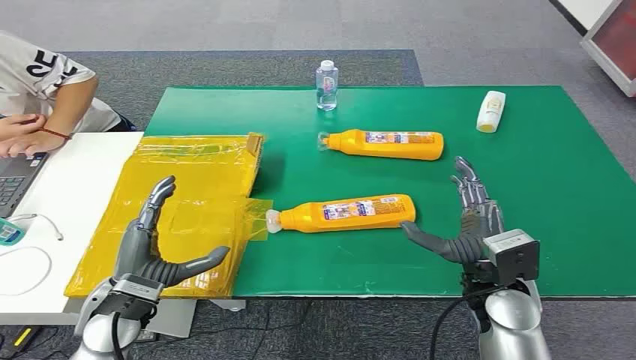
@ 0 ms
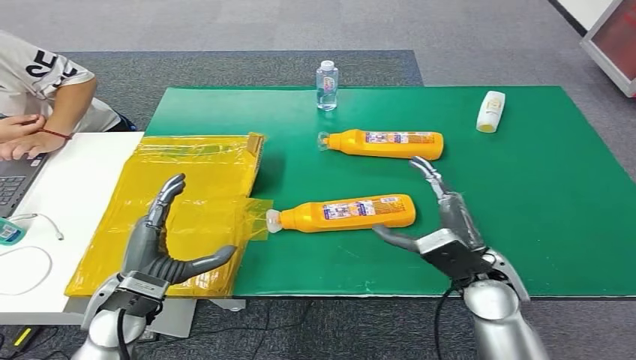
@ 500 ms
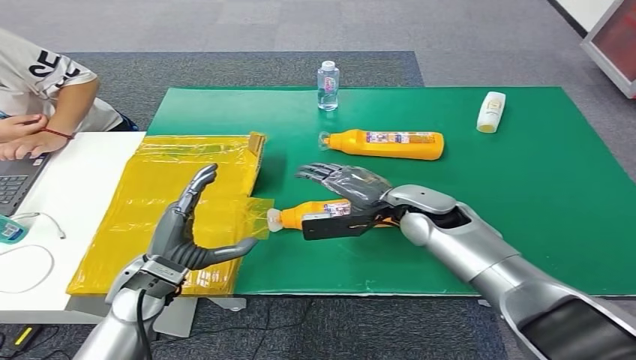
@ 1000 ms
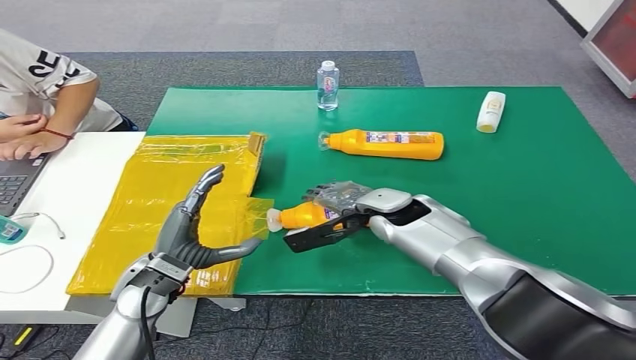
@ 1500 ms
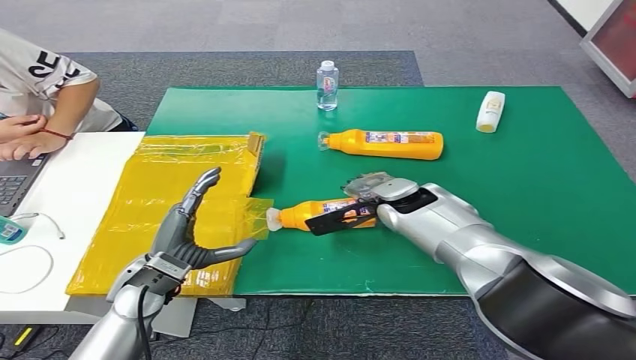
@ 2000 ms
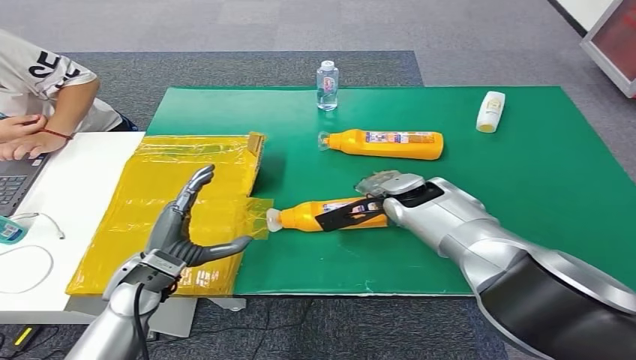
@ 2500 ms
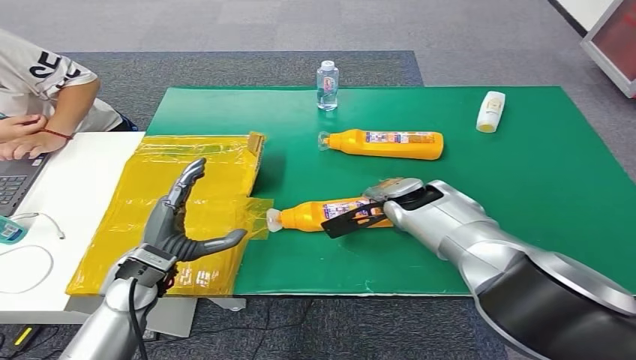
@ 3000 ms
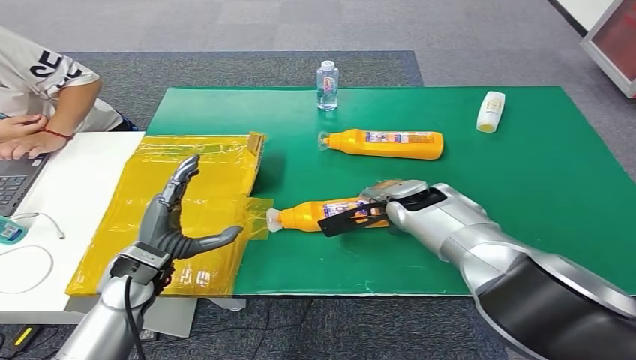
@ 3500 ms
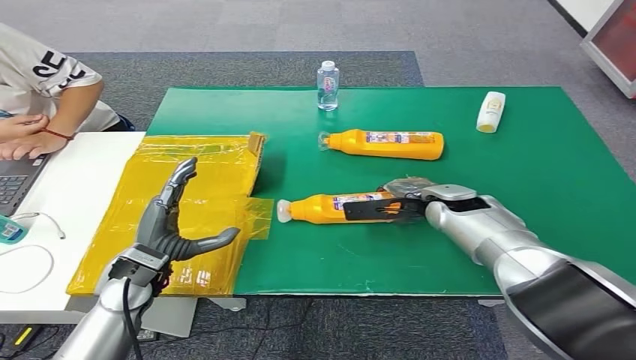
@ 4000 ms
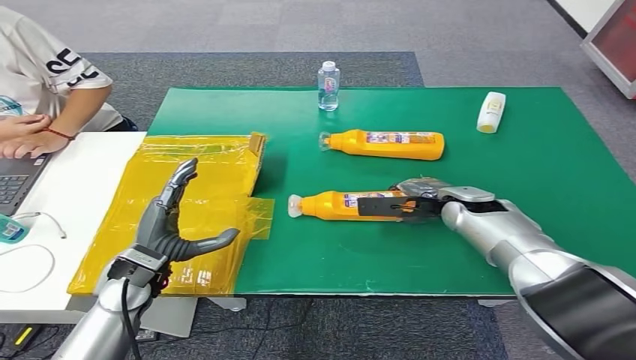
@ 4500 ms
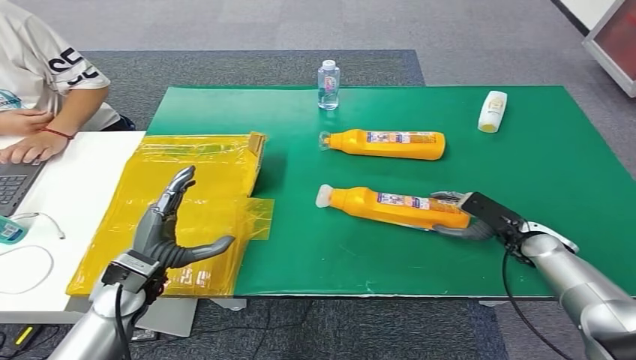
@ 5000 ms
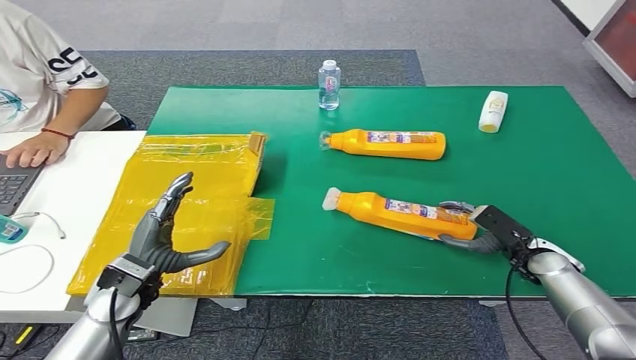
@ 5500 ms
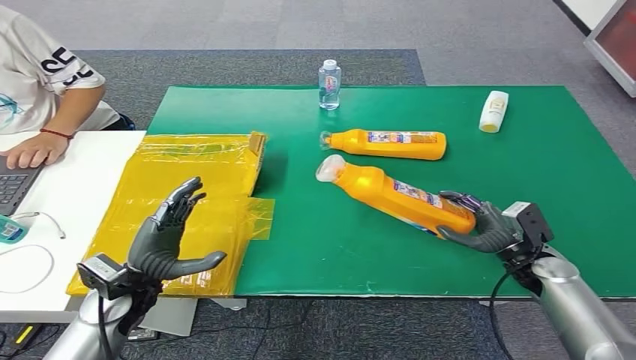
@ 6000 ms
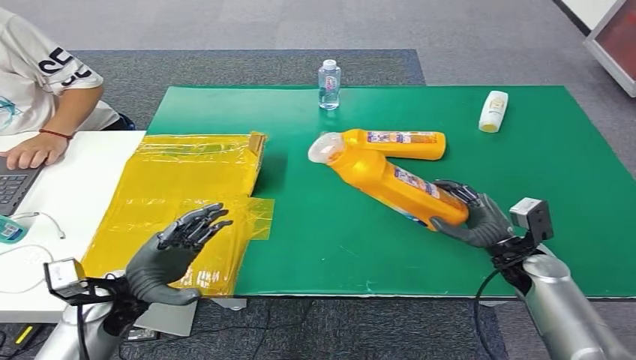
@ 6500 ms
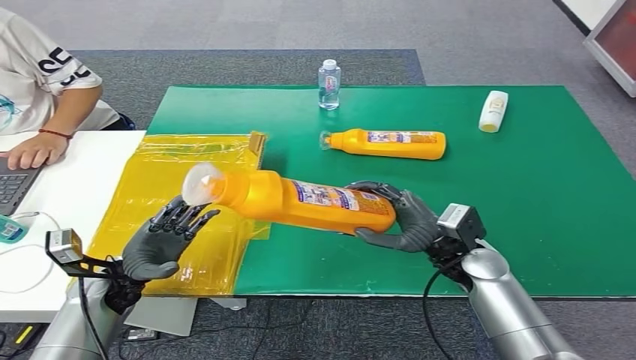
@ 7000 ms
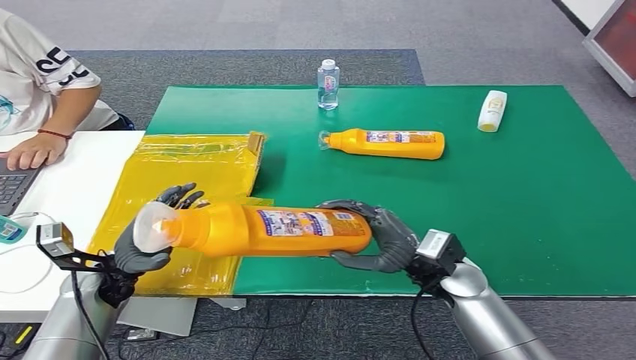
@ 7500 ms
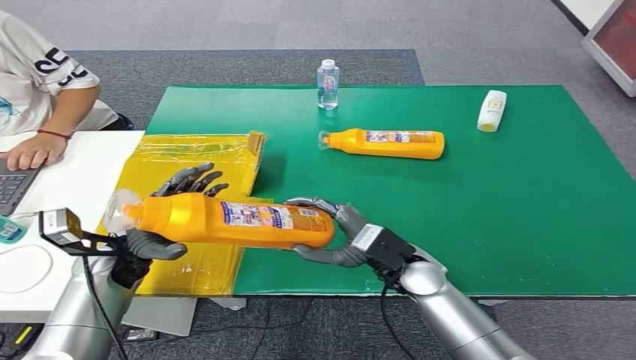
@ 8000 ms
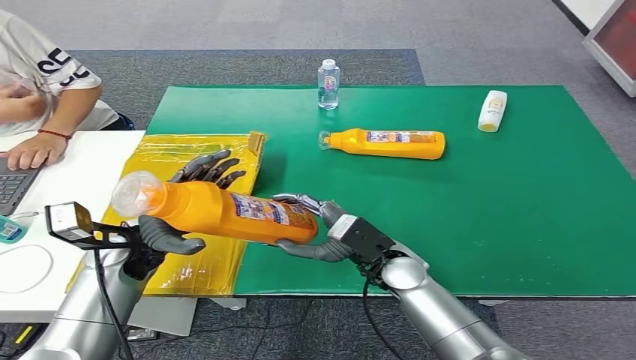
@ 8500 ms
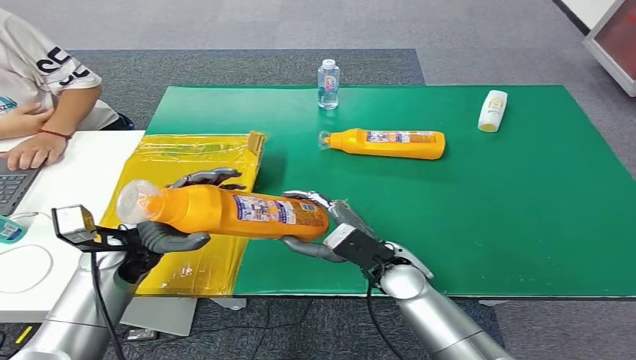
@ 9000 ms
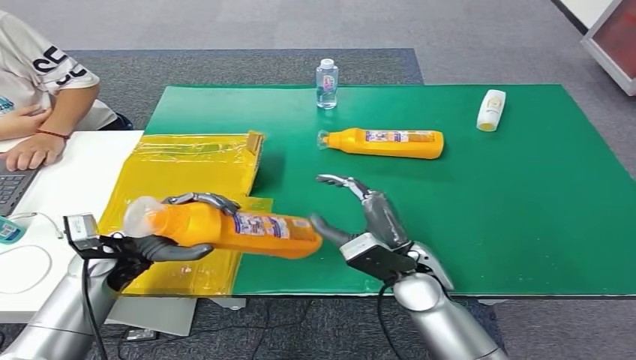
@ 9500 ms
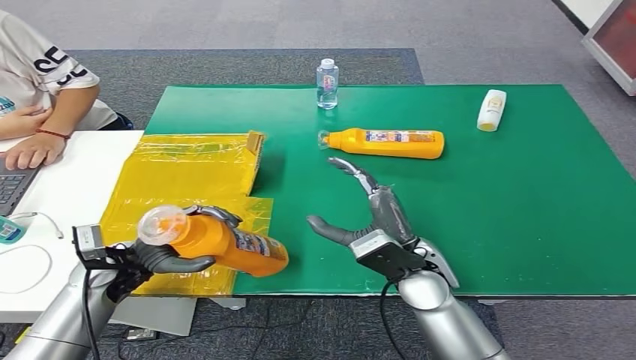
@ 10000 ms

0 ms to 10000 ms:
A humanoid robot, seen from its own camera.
Step, 0 ms to 6500 ms: Pick up the bottle from the table.
2000 ms to 4000 ms: The right hand is displaced to the right by about 10 cm.

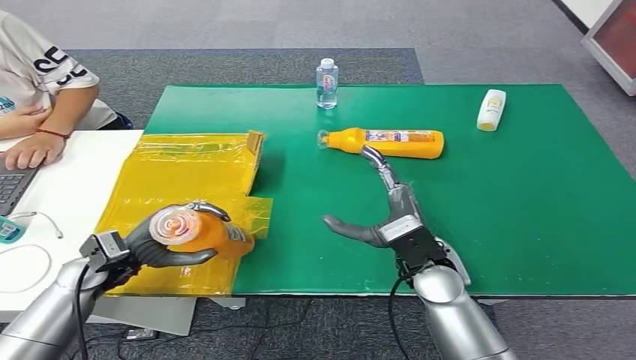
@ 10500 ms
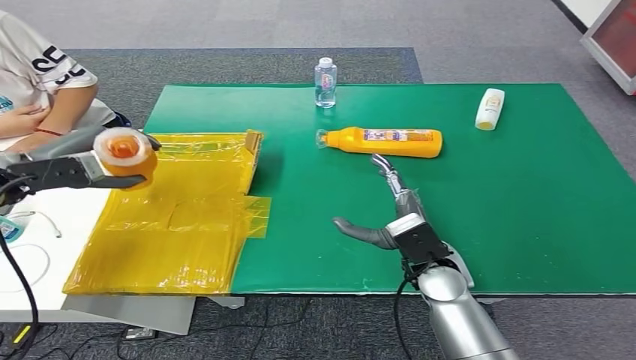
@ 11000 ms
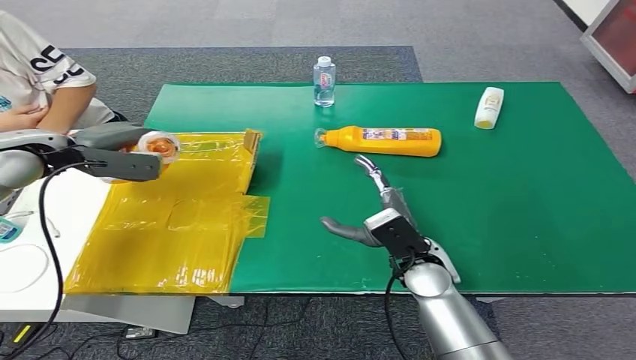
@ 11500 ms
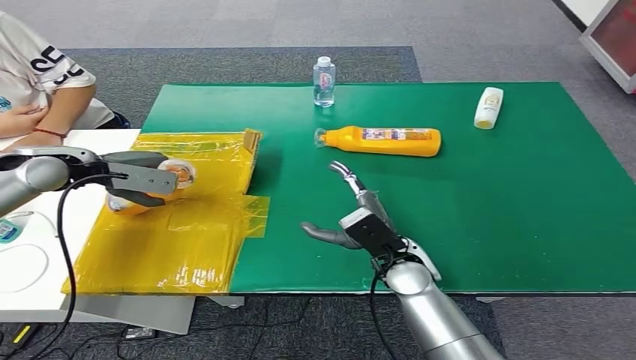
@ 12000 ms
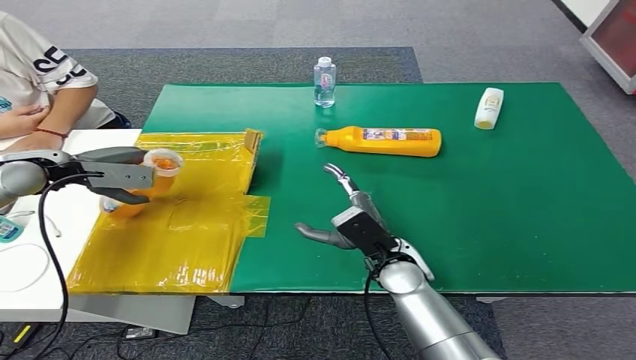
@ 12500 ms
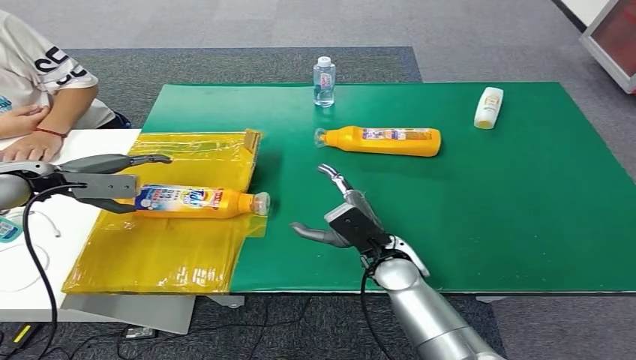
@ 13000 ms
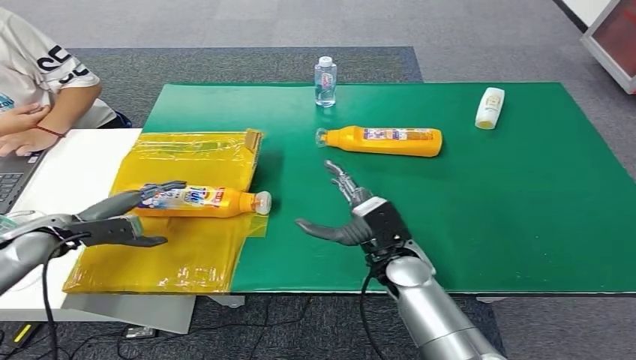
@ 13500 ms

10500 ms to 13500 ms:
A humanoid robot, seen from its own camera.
Step, 10500 ms to 13500 ms: Turn the bottle to the front side.
12000 ms to 13500 ms: The left hand is displaced downward and backward by roughly 15 cm.

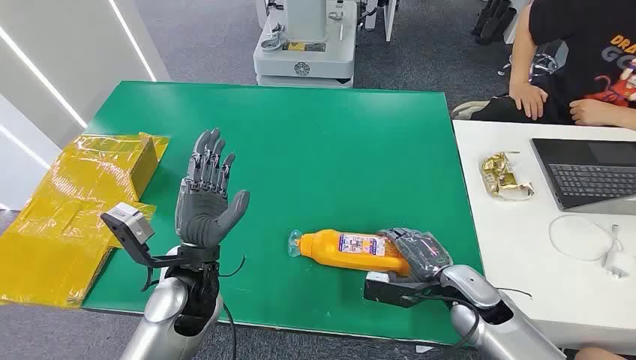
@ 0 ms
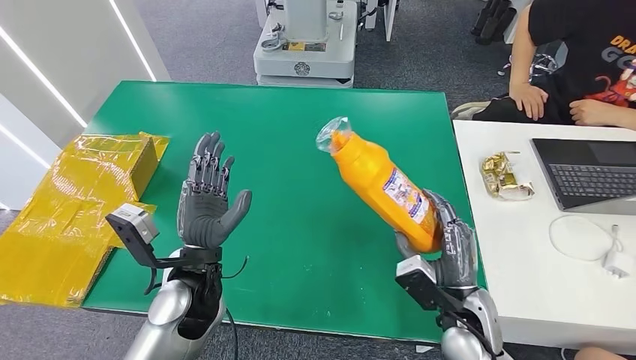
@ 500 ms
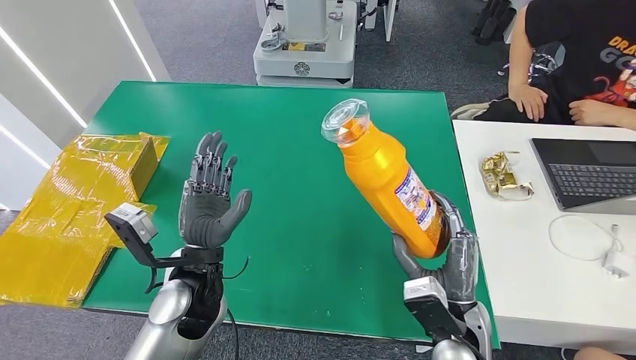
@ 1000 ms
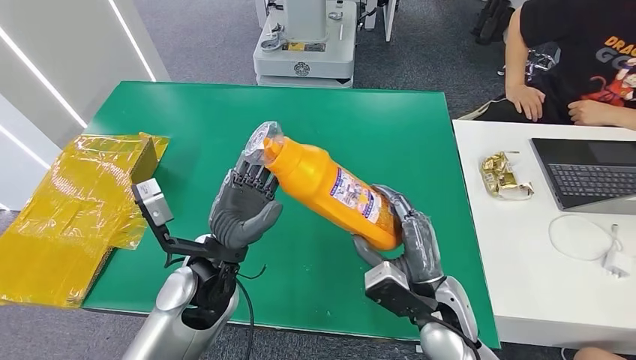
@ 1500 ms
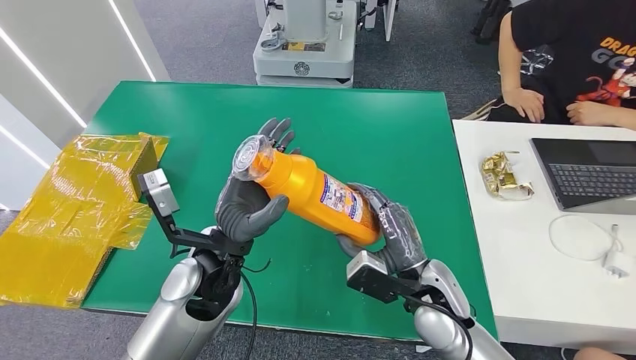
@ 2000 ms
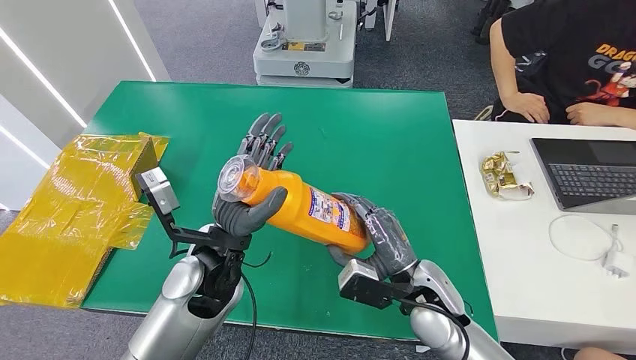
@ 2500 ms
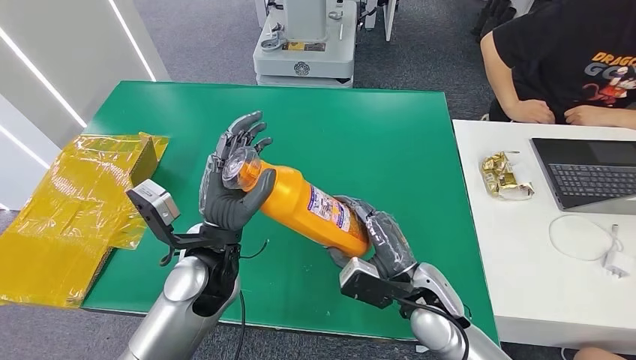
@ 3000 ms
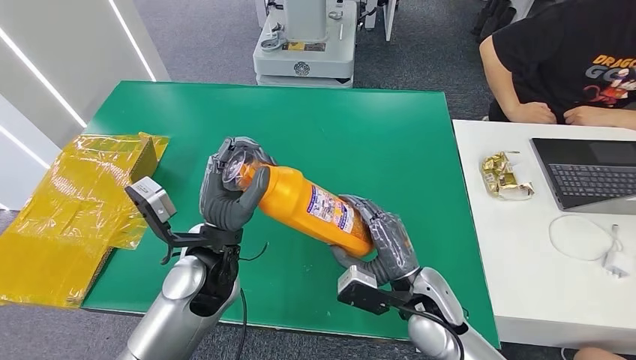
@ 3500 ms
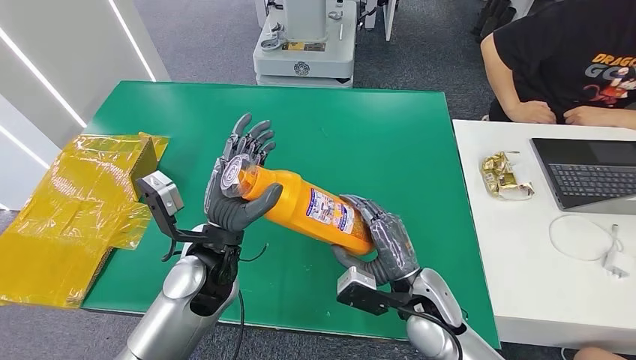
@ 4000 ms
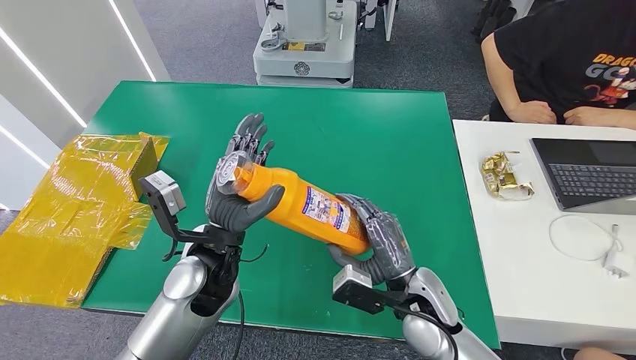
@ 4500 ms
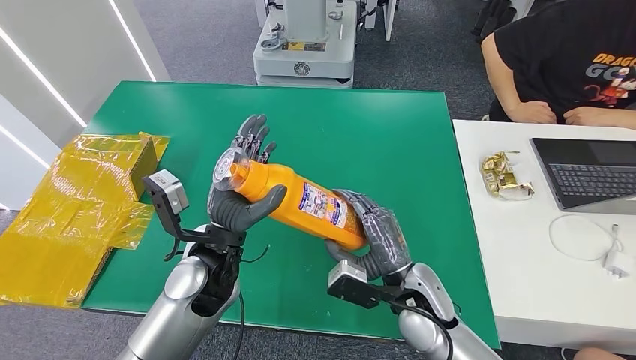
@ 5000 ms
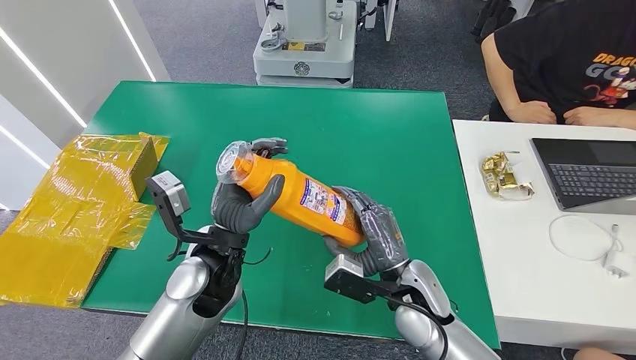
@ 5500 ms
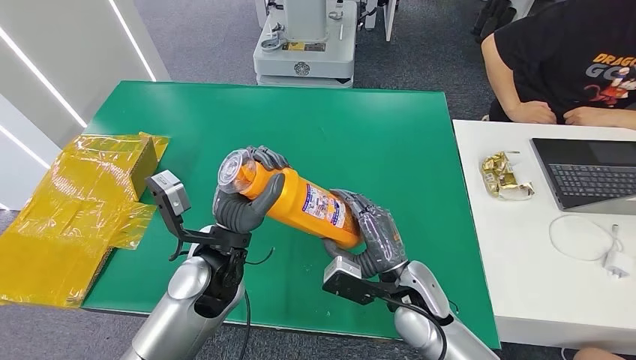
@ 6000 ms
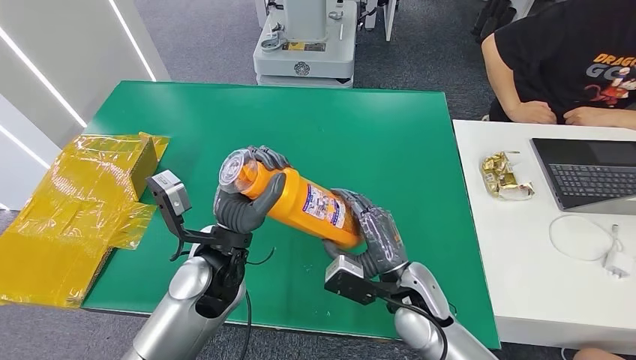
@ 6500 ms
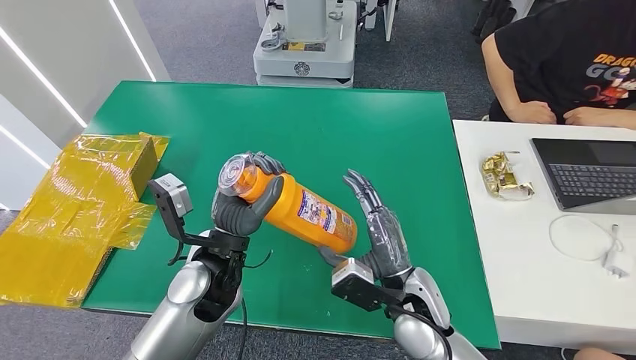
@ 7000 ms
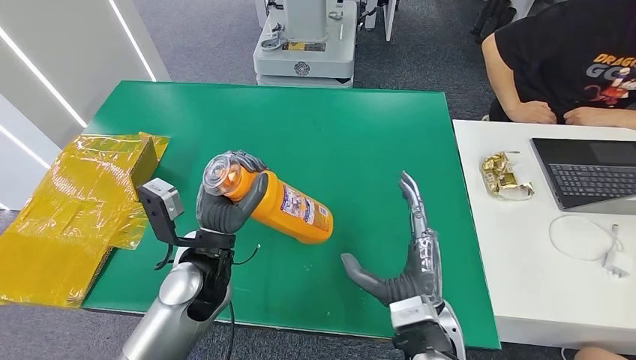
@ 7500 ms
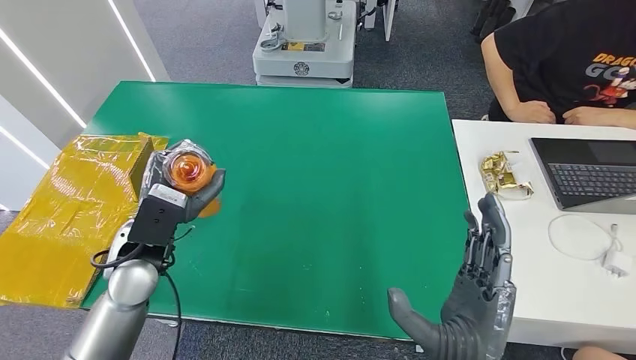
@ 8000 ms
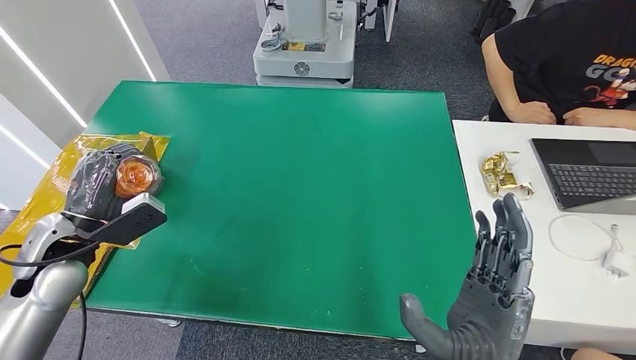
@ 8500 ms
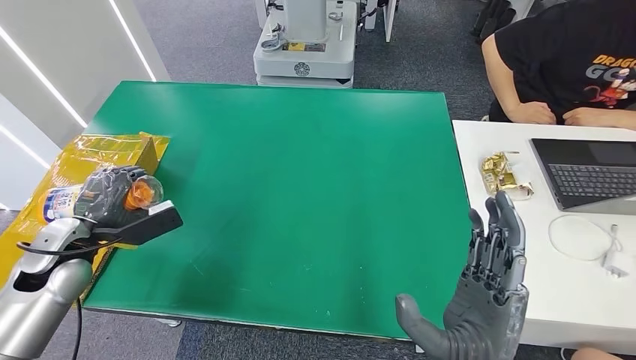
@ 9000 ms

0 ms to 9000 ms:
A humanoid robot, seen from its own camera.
Step, 0 ms to 2000 ms: Pick up the bottle from the table.
4500 ms to 7000 ms: The hands stay close to where they were, moving slightly.
